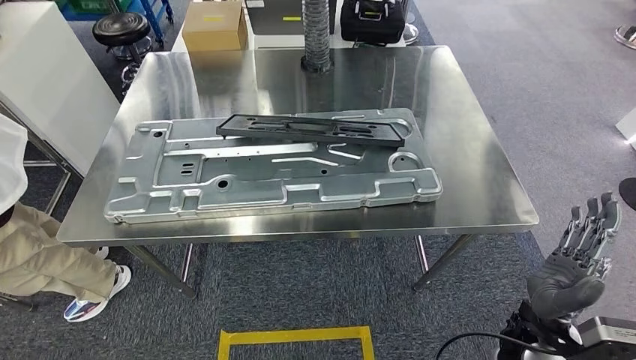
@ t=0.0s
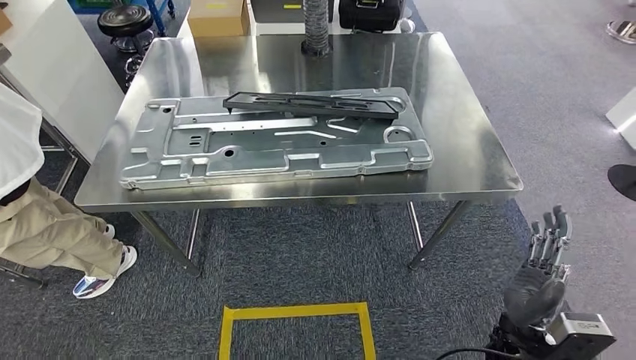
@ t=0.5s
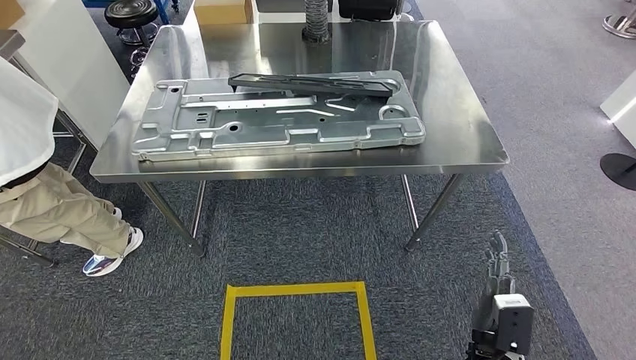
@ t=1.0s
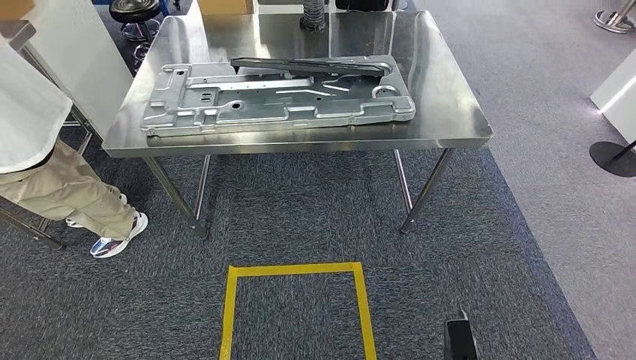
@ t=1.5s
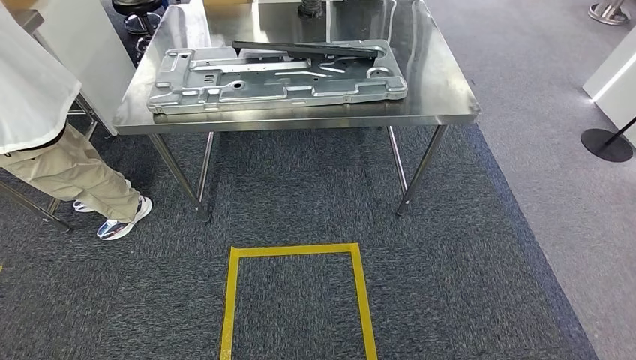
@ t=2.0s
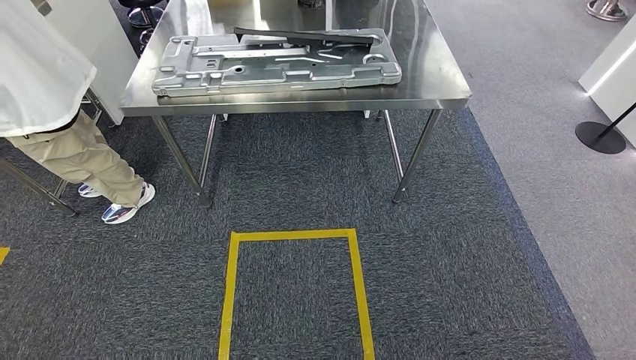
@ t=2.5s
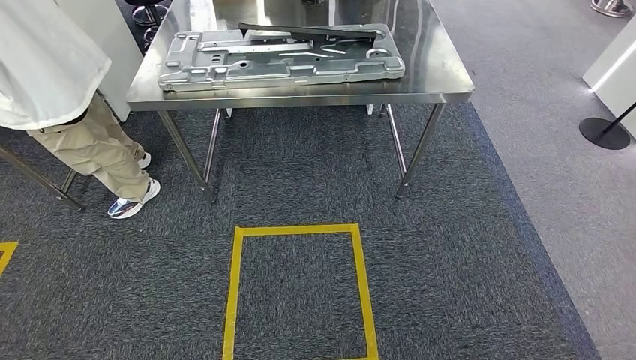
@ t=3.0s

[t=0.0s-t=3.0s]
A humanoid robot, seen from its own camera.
Step, t=0.0s to t=3.0s: Return to the initial position at the workbench.
